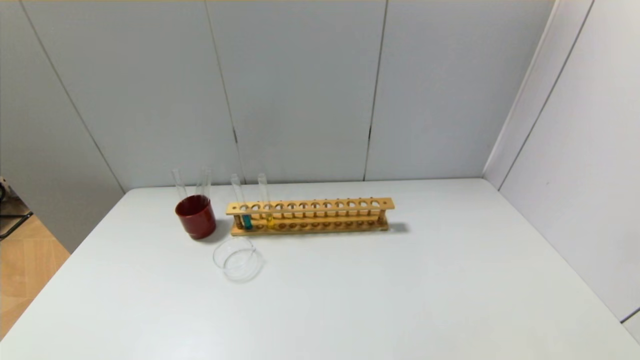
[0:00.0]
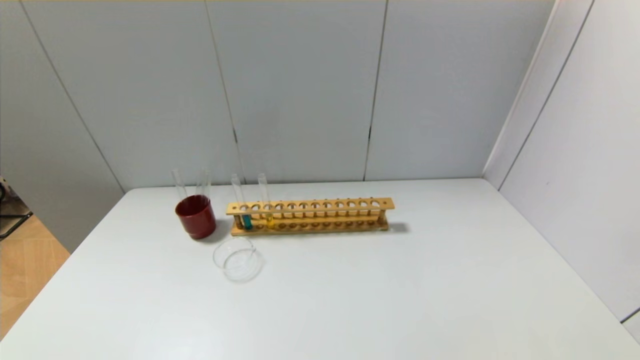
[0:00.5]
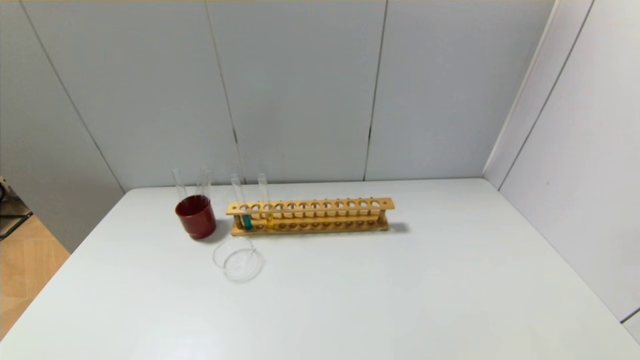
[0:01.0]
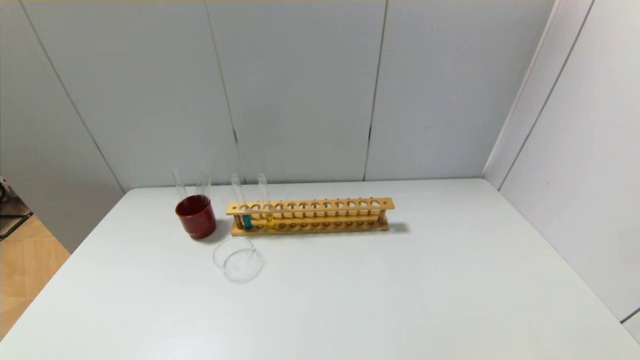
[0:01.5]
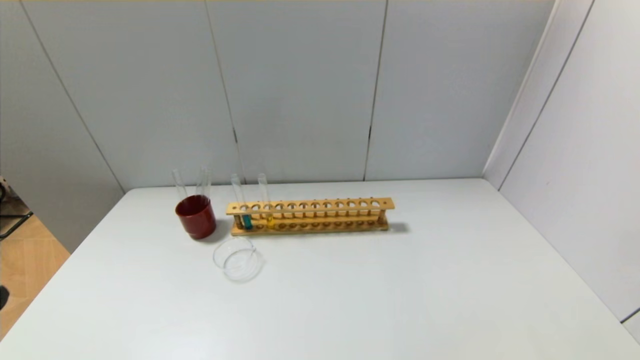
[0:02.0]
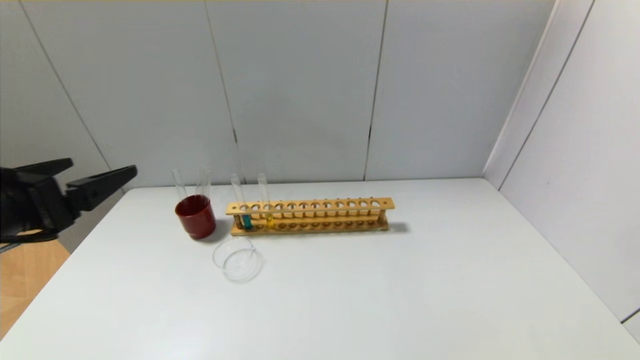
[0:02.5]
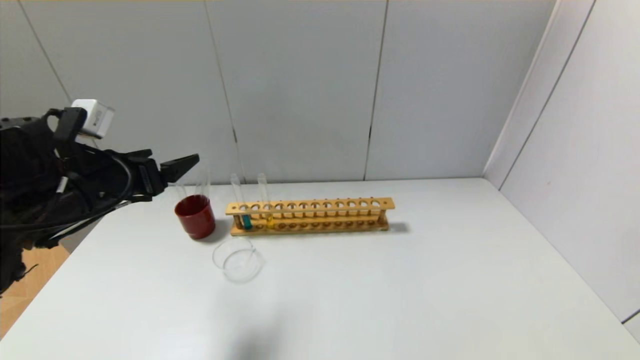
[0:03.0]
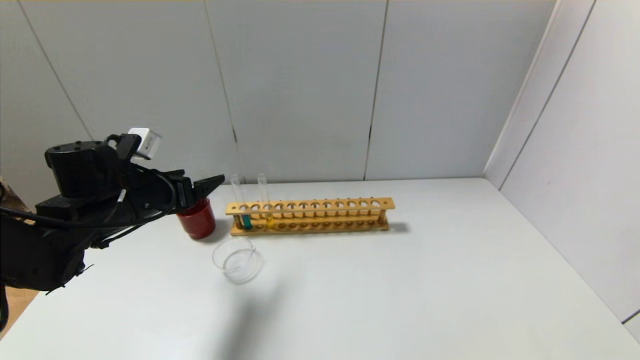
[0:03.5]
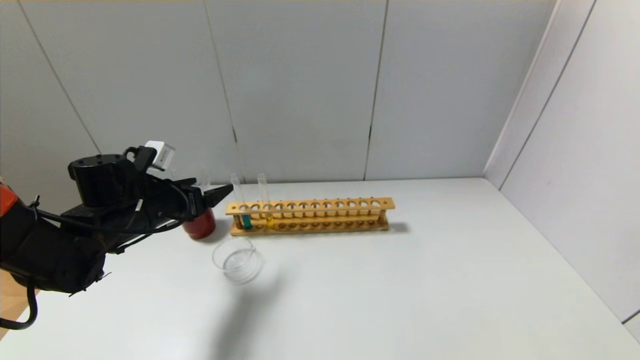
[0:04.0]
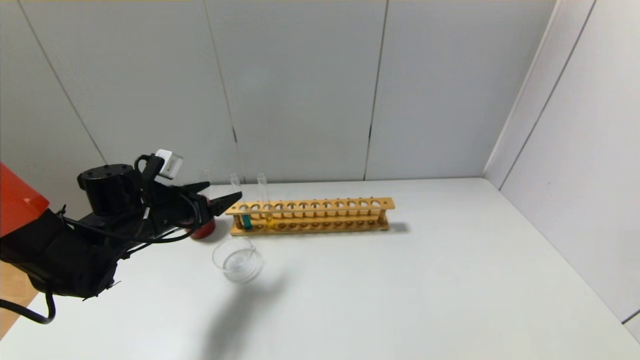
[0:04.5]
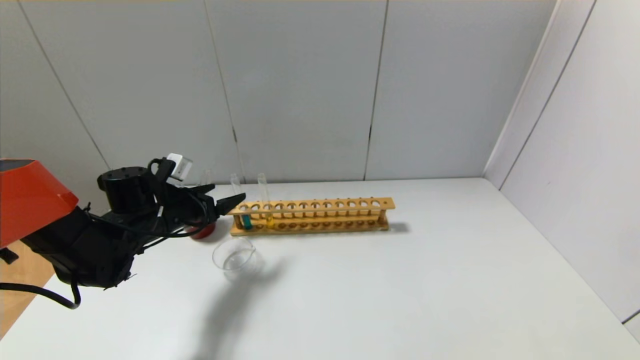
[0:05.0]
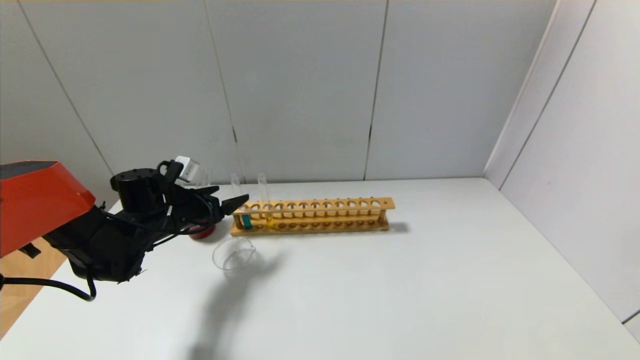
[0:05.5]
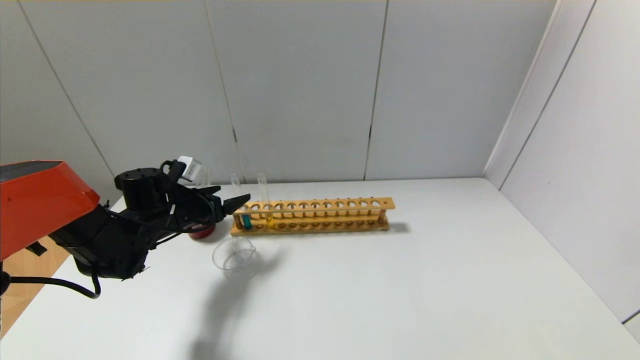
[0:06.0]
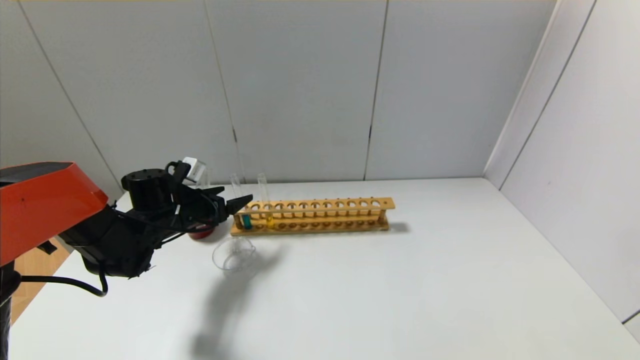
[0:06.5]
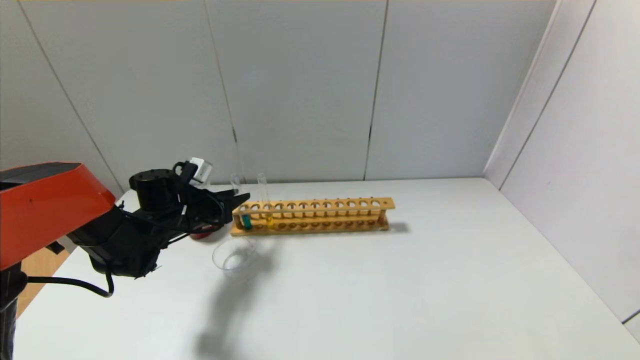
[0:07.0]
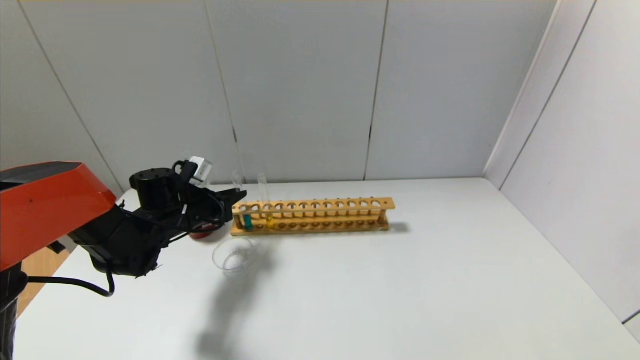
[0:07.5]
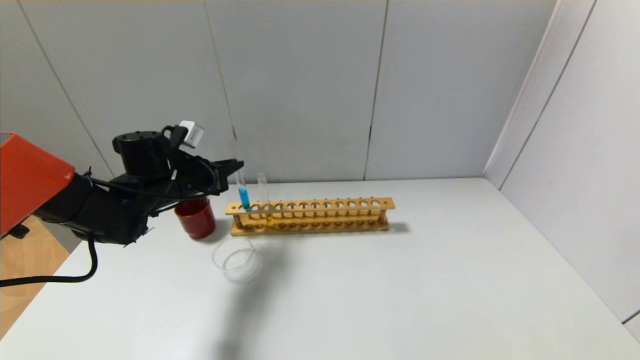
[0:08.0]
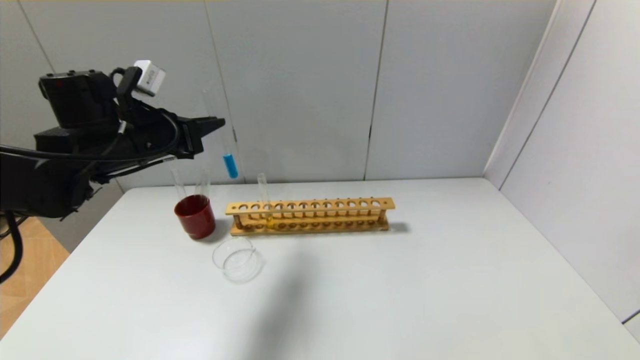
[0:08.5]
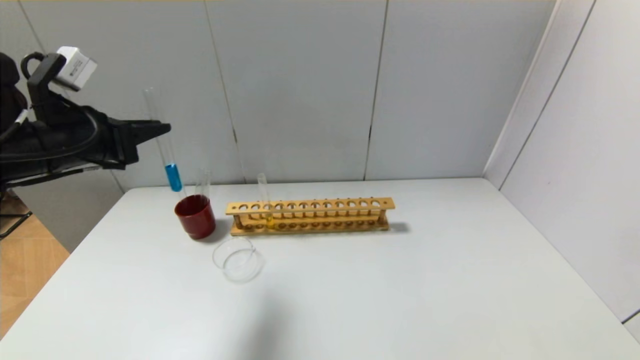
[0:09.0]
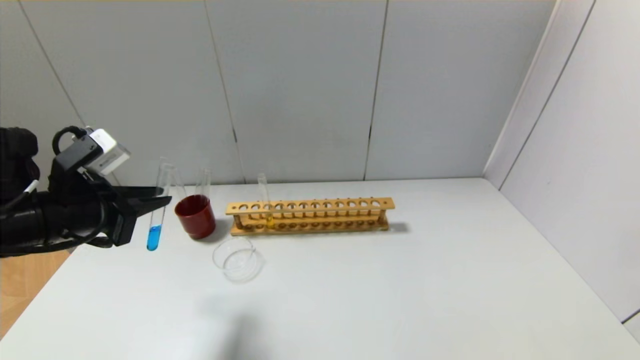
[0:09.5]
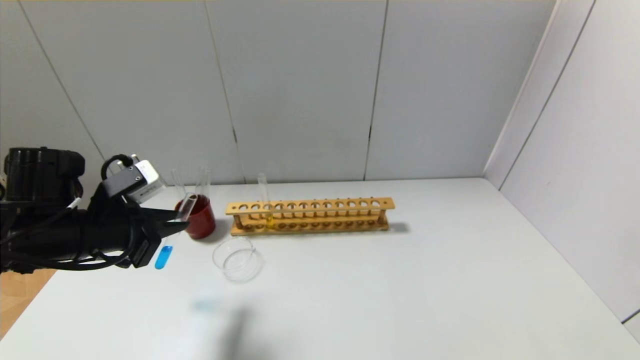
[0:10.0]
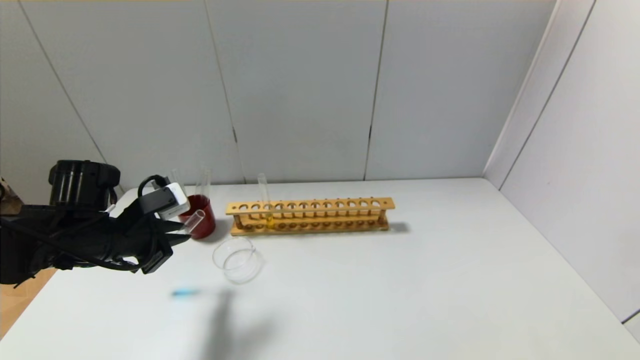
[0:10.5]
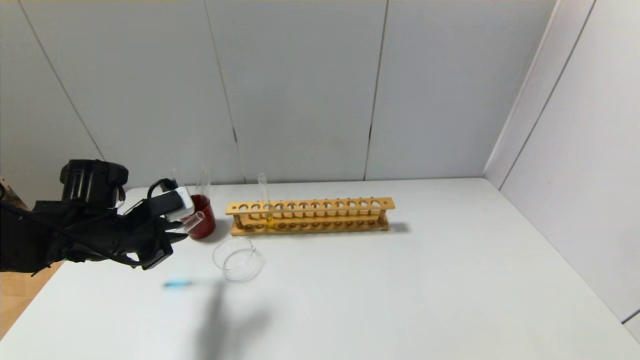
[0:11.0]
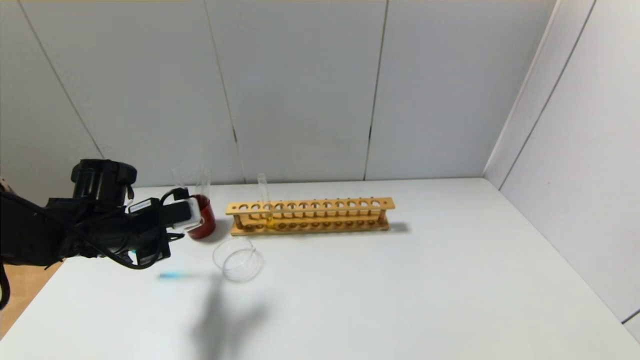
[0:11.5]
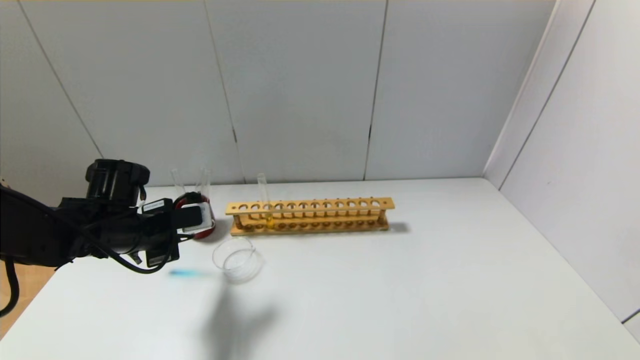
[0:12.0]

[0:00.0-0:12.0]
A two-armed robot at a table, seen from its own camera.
Step, 0:00.0 to 0:07.0: Grasp the blue reagent with the left gripper.
0:02.0 to 0:04.0: The left gripper heads forward, covering about 30 cm.
0:04.0 to 0:06.0: The left gripper travels forward and downward by about 10 cm.
0:06.0 to 0:08.0: The left gripper heads upward, covering roughly 5 cm, and closes its fingers.
0:08.0 to 0:10.0: The left gripper moves backward, approximately 15 cm.
0:10.0 to 0:12.0: The left gripper moves forward, roughly 5 cm.

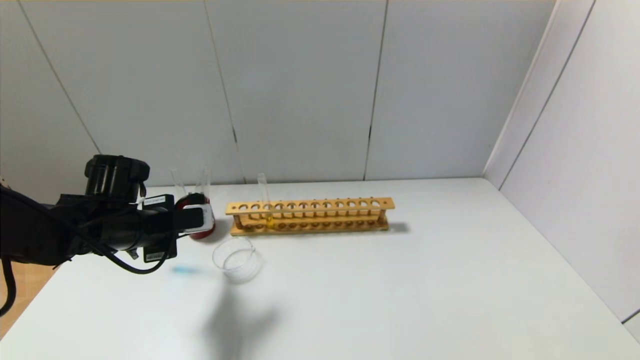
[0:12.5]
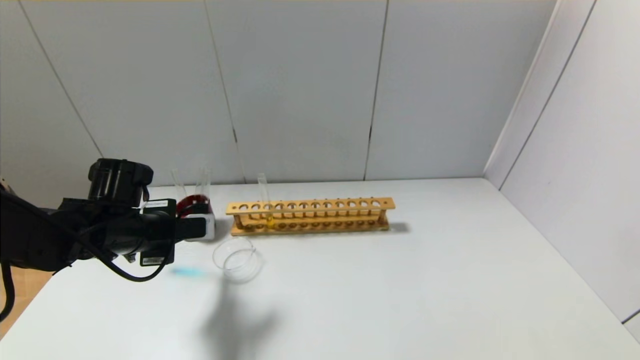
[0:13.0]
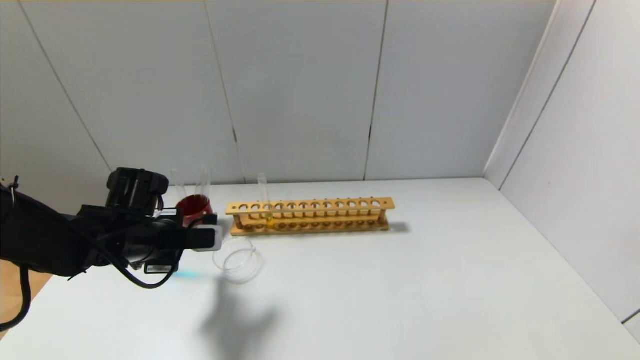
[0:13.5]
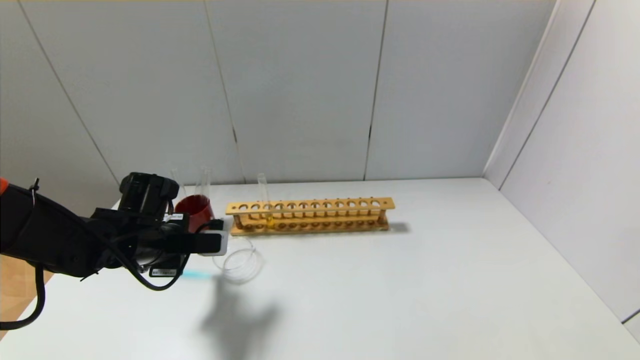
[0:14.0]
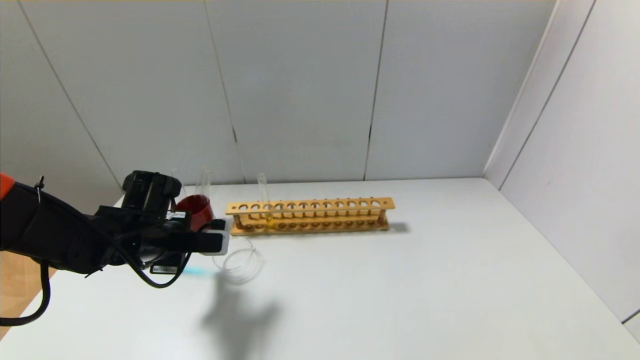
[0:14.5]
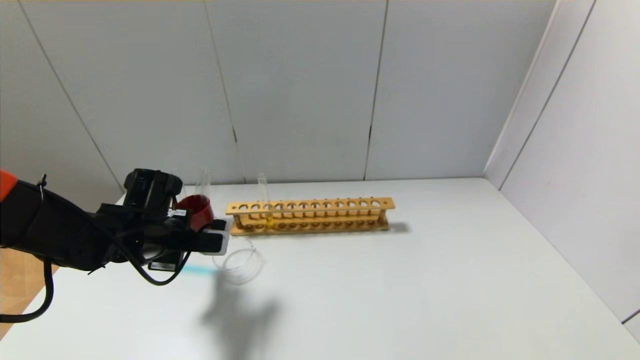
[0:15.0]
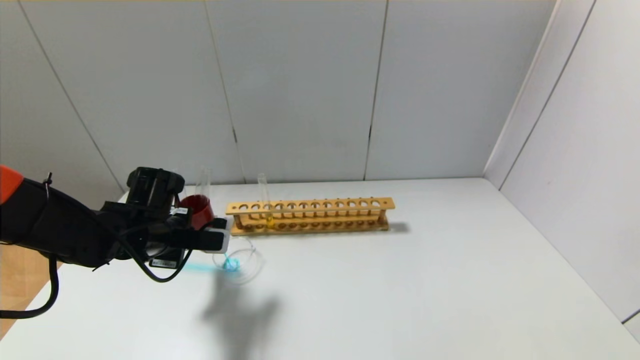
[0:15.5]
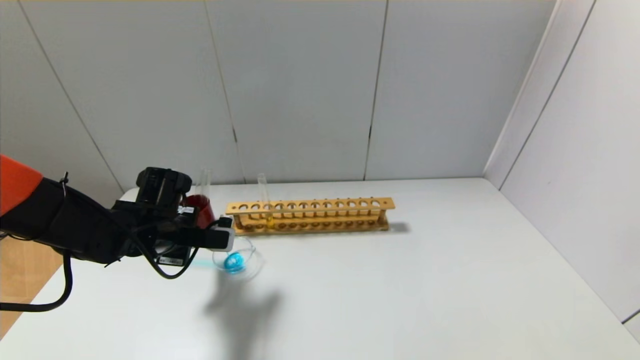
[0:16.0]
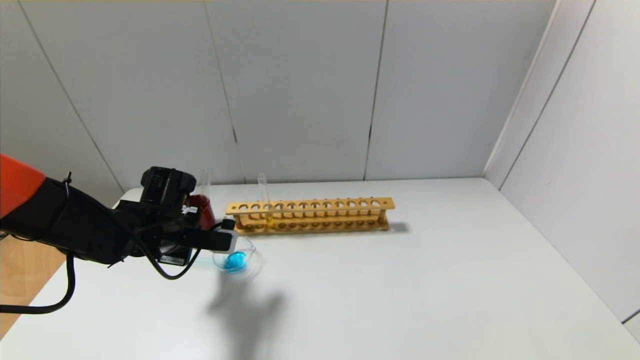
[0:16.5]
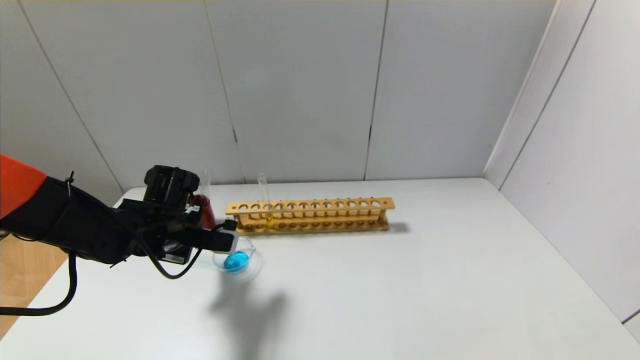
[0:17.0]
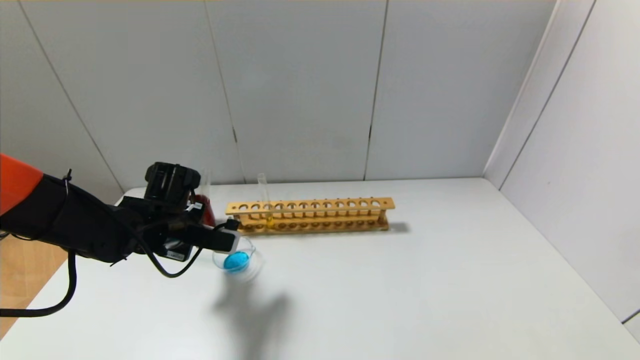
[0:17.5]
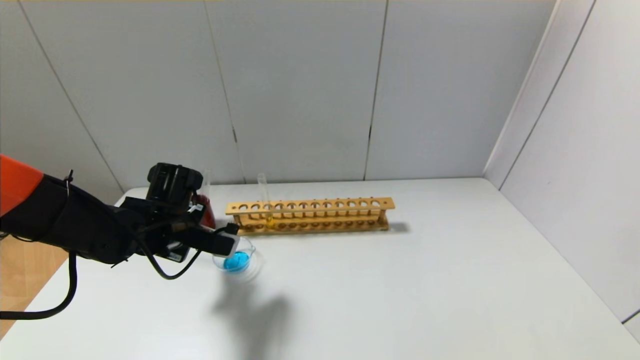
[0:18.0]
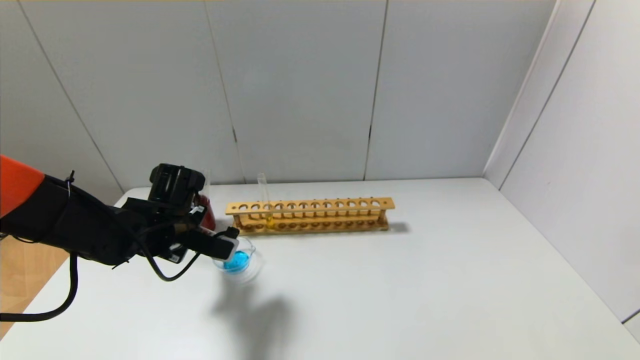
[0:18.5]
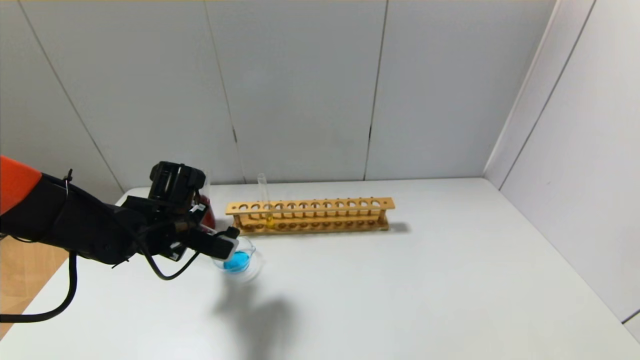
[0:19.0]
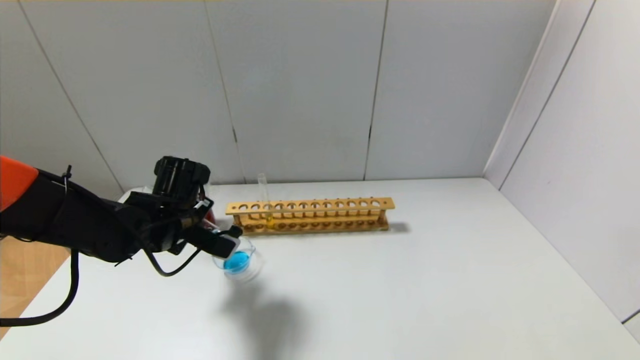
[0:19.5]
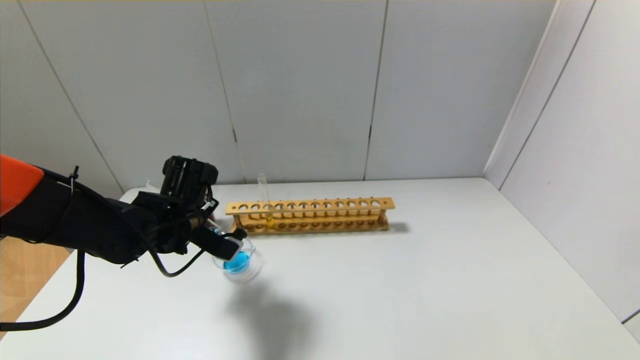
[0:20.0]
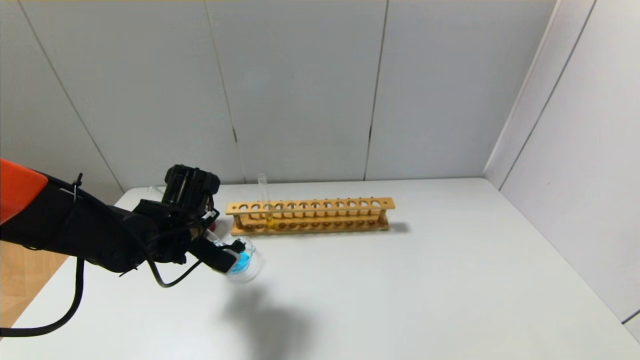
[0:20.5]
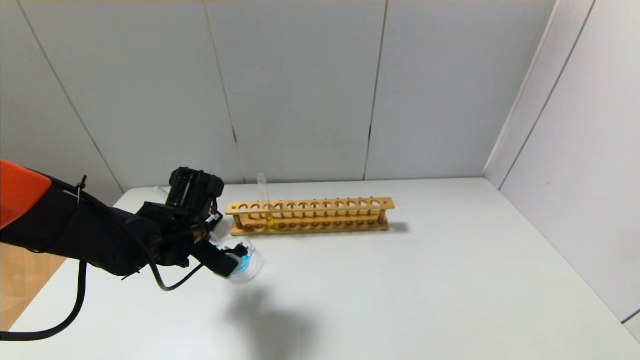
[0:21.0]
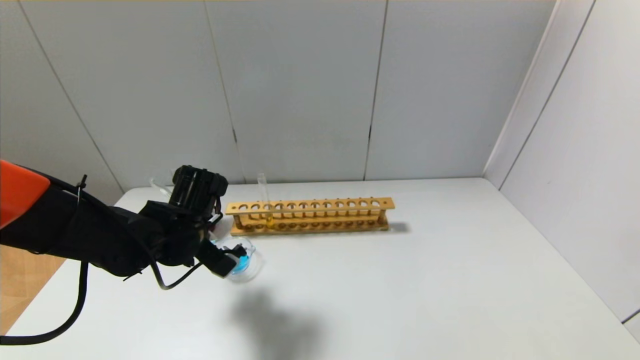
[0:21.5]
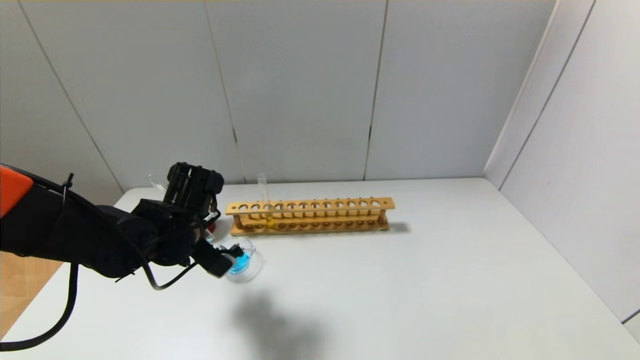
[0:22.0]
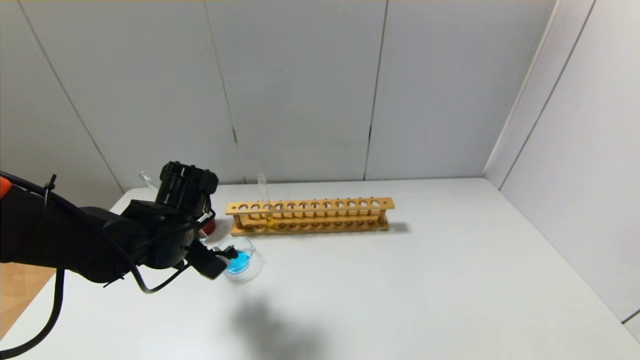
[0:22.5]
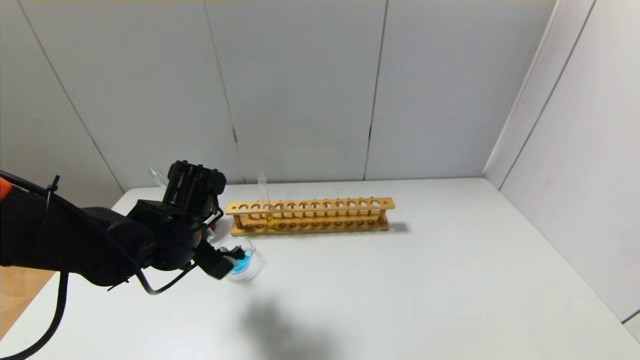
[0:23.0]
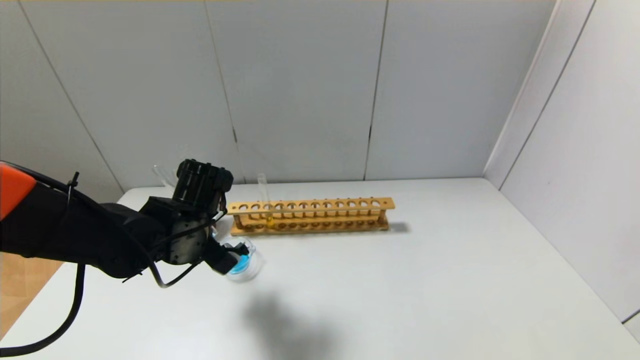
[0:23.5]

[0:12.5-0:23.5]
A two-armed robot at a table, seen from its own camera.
0:12.5 to 0:16.0: The grippers make only small movements.
0:16.0 to 0:18.0: There are only small adjustments of the grippers.
0:18.0 to 0:20.0: The grippers make only small movements.
0:20.0 to 0:23.5: The grippers make only small movements.
